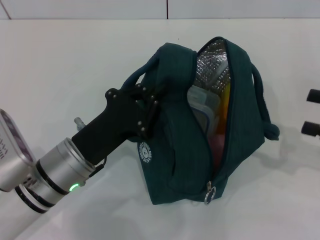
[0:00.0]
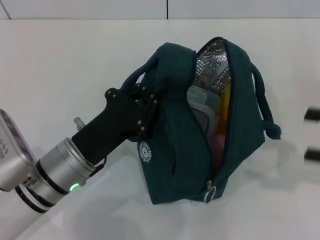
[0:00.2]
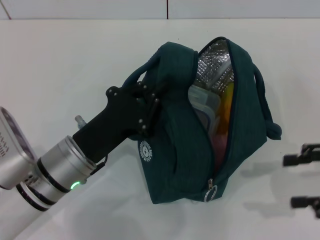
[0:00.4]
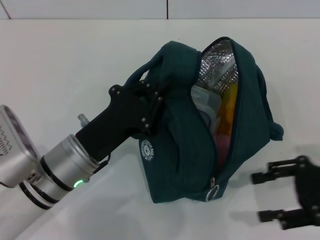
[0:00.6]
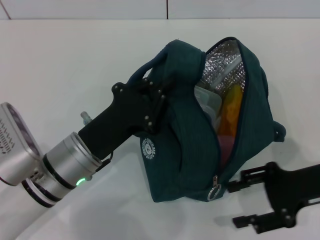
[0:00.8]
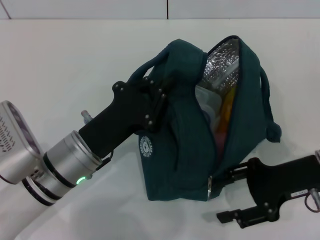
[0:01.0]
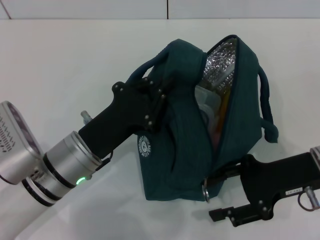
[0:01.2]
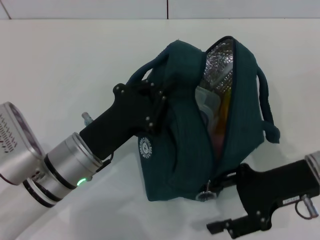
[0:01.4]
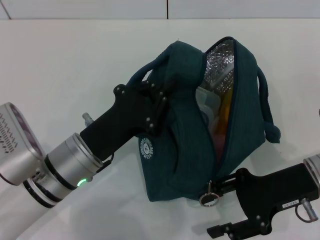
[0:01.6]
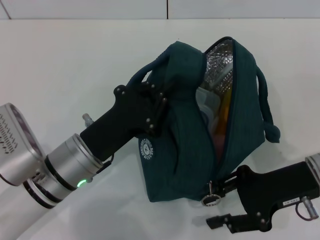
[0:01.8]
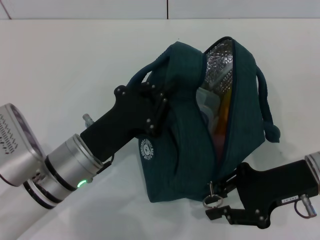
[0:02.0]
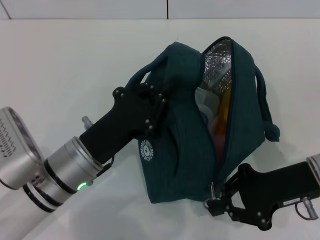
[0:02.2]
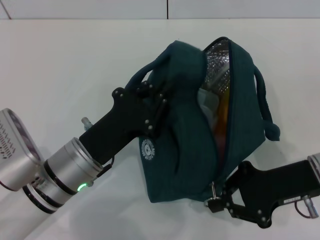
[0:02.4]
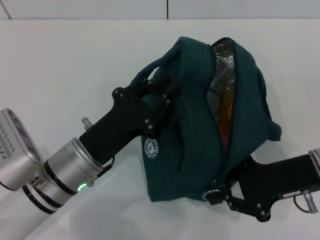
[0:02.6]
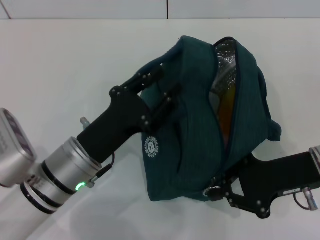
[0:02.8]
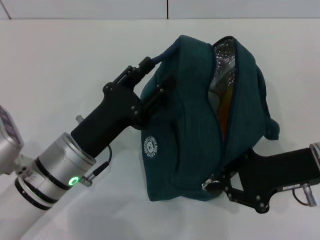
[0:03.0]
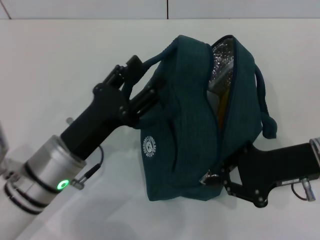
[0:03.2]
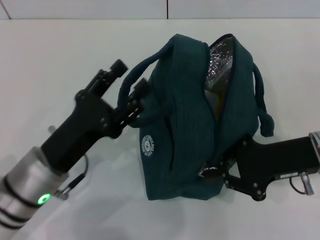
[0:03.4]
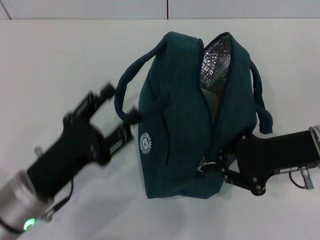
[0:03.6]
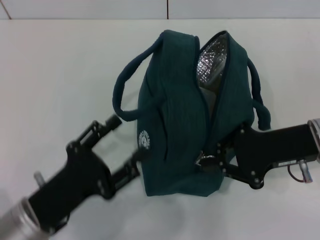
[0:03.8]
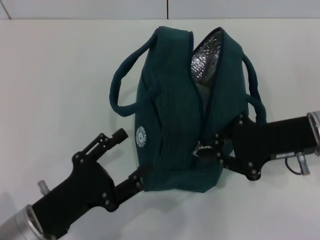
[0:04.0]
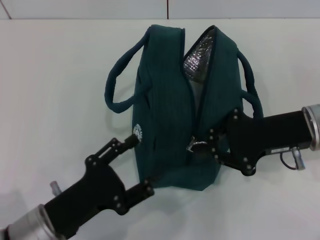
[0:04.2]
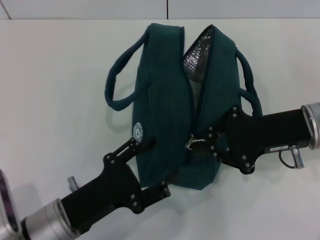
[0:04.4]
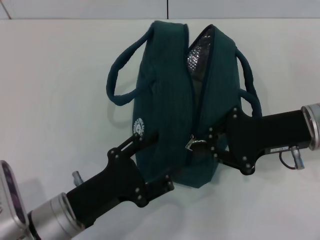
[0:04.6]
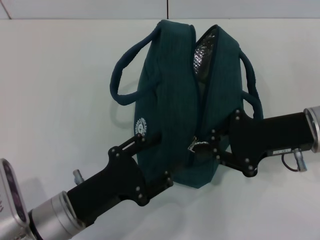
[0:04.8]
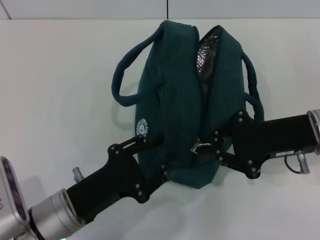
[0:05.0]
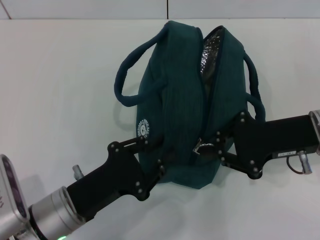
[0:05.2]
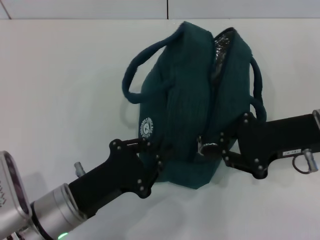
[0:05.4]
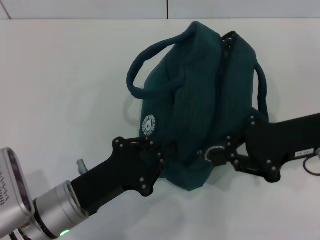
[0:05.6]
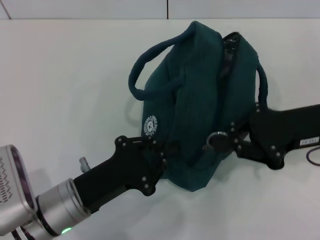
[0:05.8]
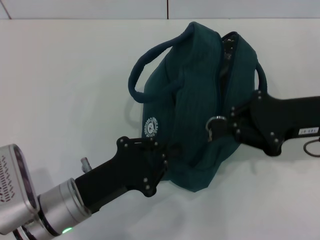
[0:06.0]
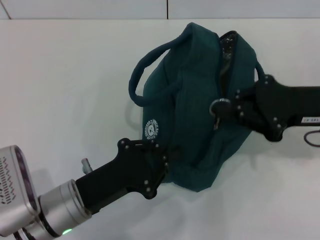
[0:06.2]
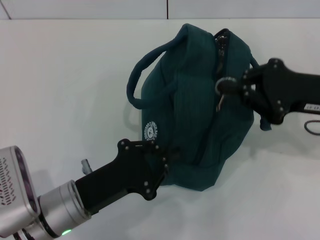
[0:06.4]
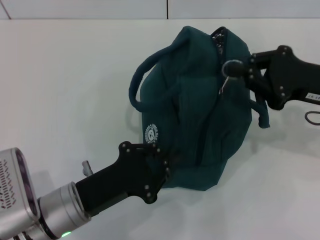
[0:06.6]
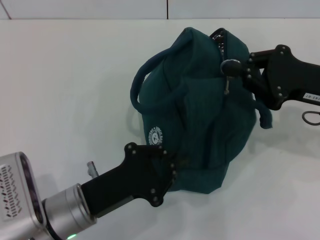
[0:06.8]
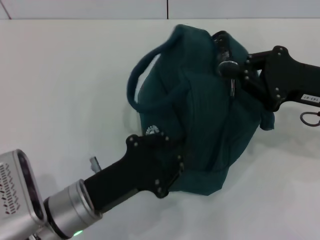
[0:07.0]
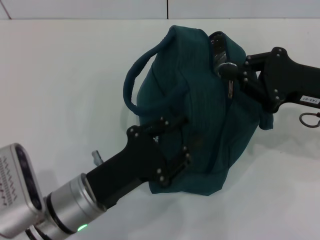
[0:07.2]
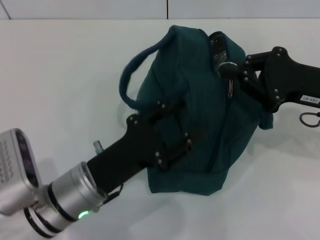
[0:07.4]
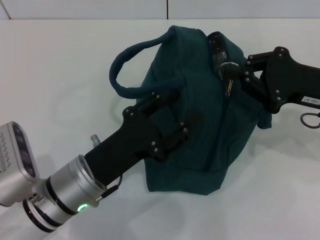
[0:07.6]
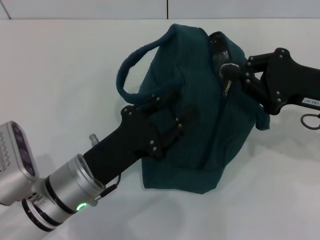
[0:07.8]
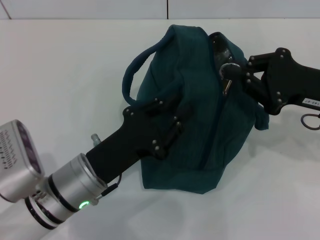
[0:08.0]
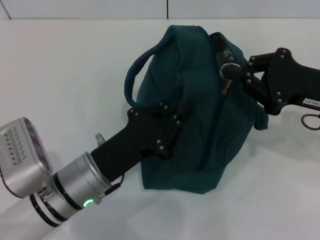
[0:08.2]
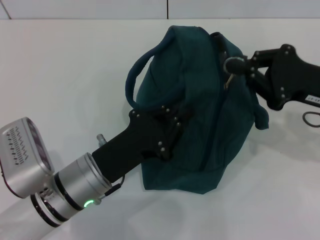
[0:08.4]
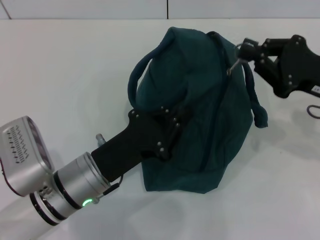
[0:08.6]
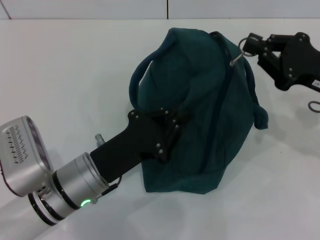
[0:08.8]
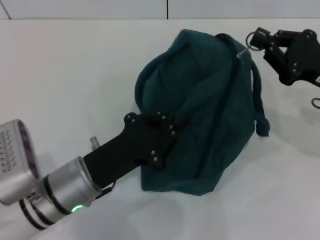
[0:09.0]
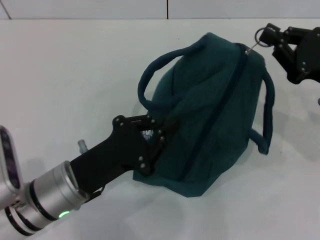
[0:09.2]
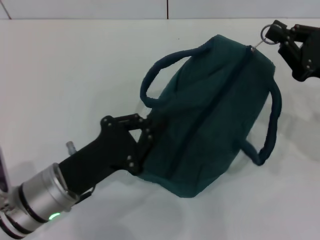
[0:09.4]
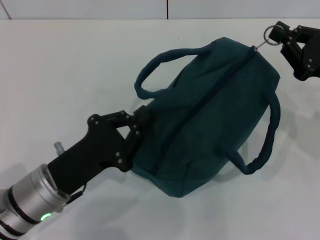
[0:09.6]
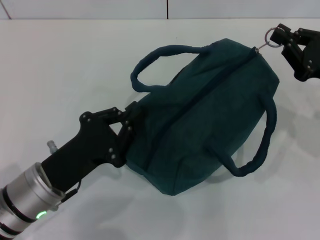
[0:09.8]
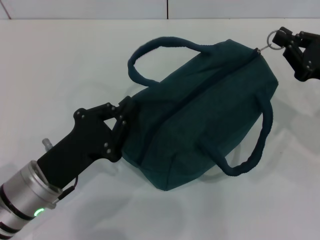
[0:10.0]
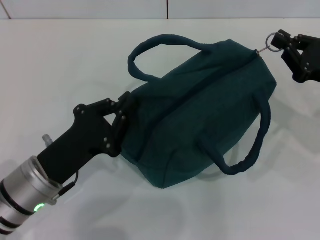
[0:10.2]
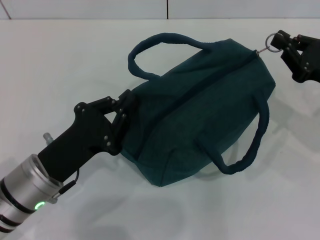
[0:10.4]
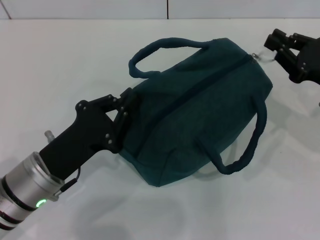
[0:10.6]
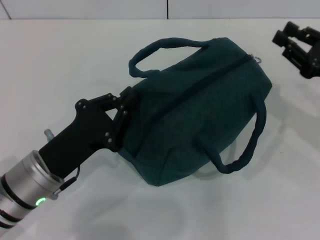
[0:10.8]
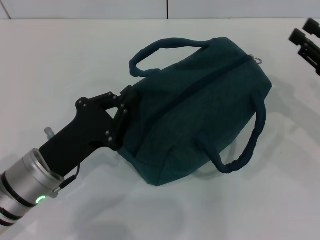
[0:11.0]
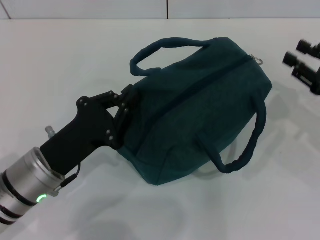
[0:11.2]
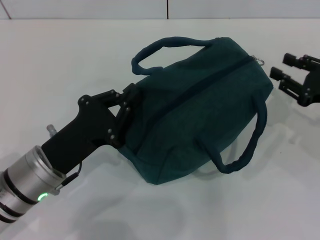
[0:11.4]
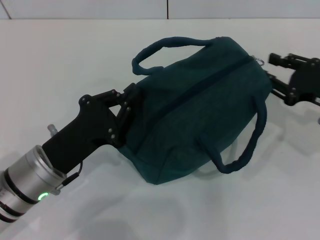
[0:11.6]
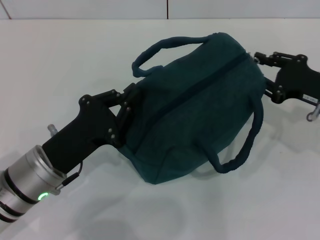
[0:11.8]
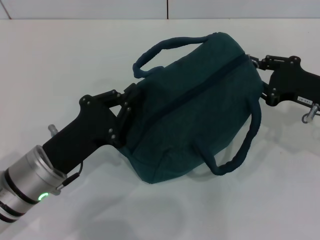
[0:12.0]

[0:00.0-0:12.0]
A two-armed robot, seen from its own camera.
Step, 0:00.0 to 0:03.0: Hold the lunch bag with your left hand.
0:00.0 to 0:01.6: The right gripper travels to the left by some 15 cm.
0:01.6 to 0:03.0: The left gripper opens its fingers. Meanwhile the right gripper closes.
0:03.0 to 0:04.4: The left gripper shifts some 5 cm backward, and opens its fingers.
0:04.4 to 0:06.0: The left gripper closes up.
0:06.0 to 0:07.6: The left gripper opens up.
0:07.6 to 0:09.0: The left gripper closes.
0:10.4 to 0:12.0: The right gripper opens its fingers.

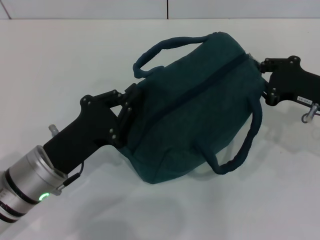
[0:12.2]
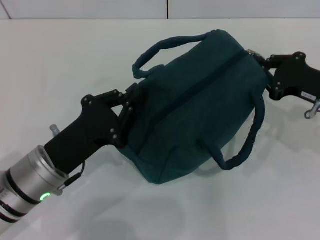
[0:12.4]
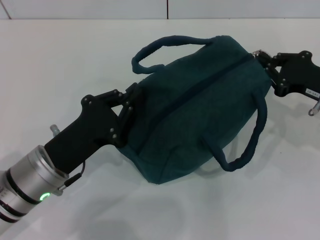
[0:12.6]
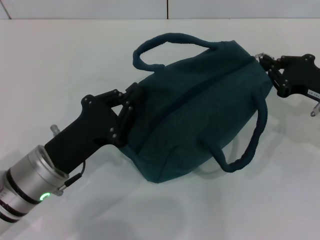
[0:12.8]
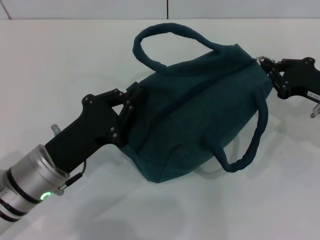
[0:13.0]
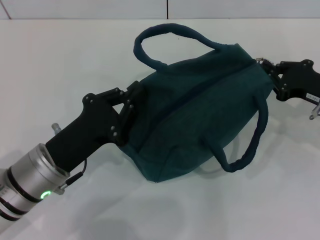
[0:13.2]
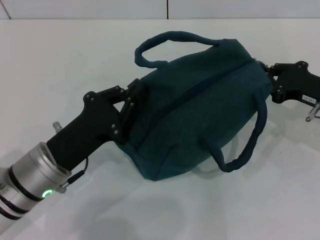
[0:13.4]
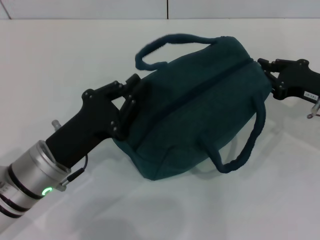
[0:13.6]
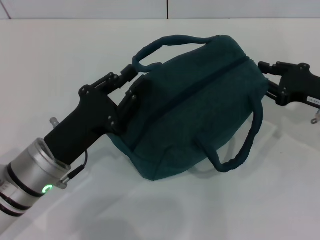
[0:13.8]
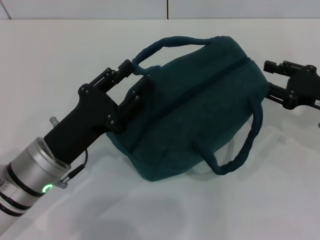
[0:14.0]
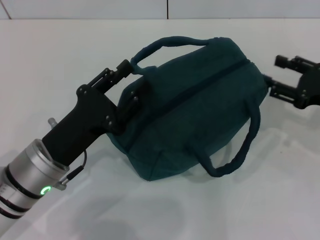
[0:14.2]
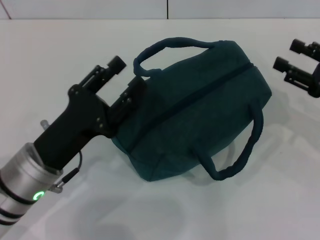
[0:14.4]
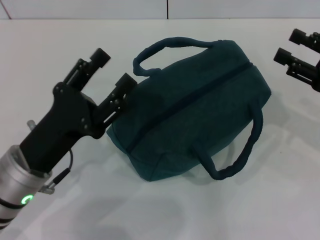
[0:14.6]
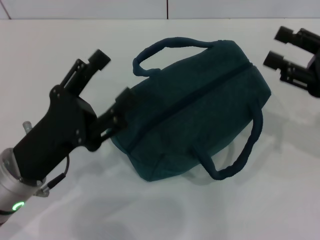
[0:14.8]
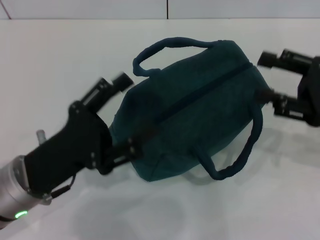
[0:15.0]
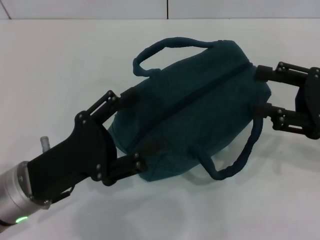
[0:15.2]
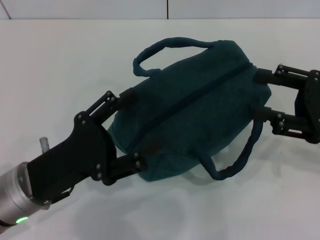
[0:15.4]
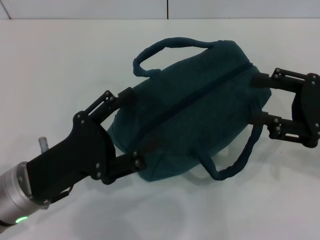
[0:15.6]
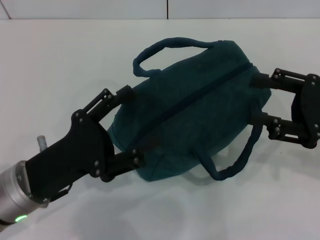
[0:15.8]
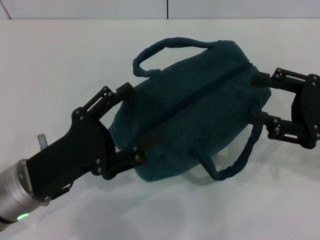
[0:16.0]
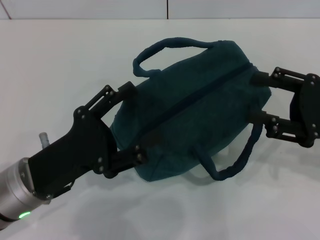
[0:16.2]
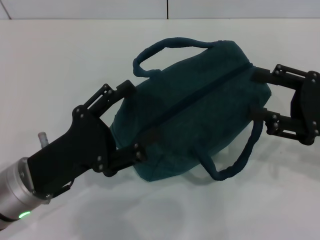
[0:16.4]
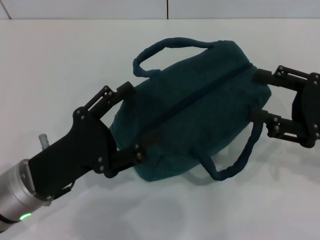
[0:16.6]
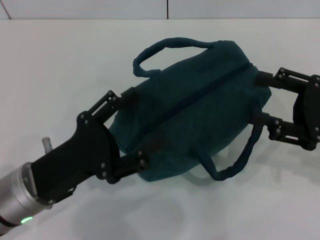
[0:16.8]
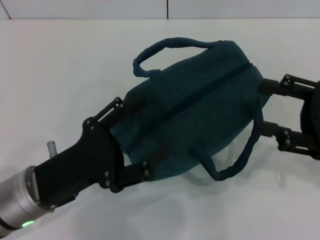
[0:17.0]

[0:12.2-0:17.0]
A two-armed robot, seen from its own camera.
0:12.2 to 0:13.8: The grippers move only a little.
0:13.8 to 0:15.4: The left gripper opens. Meanwhile the right gripper travels backward and upward by some 10 cm, and opens.
0:15.4 to 0:17.0: There are only small adjustments of the grippers.

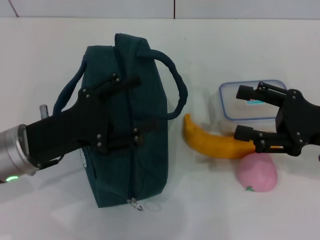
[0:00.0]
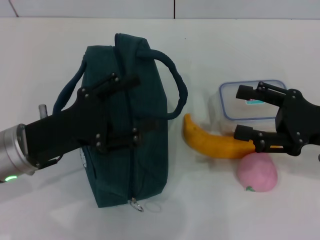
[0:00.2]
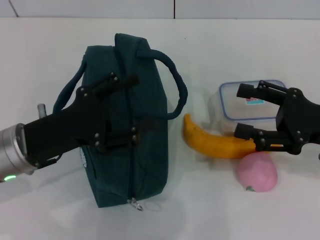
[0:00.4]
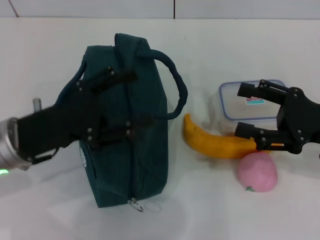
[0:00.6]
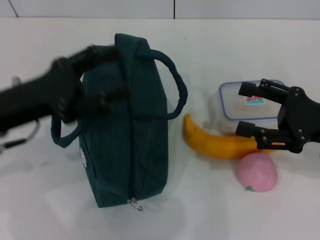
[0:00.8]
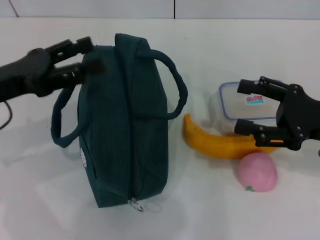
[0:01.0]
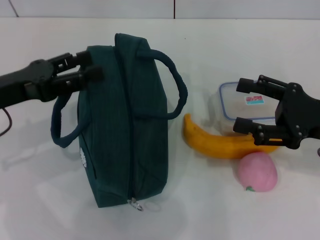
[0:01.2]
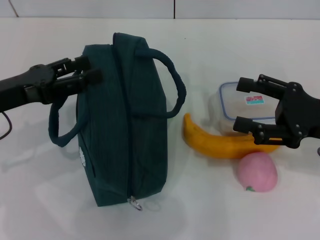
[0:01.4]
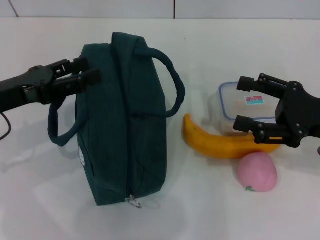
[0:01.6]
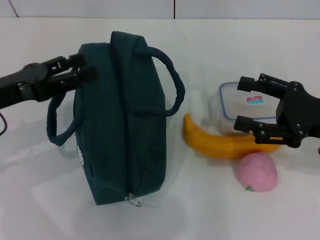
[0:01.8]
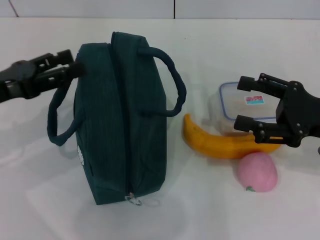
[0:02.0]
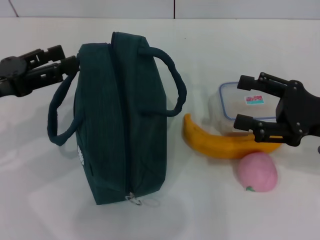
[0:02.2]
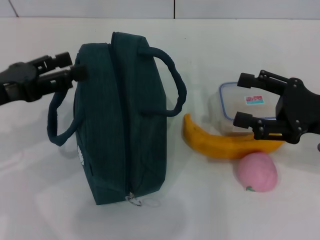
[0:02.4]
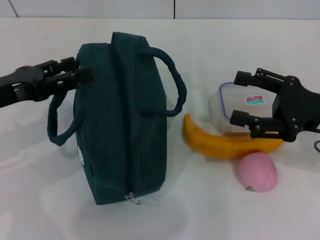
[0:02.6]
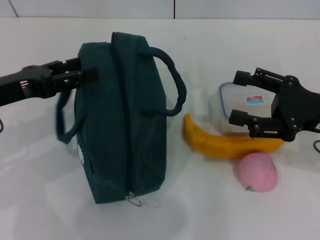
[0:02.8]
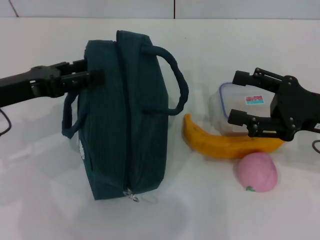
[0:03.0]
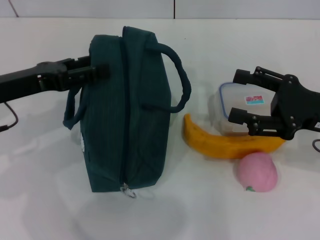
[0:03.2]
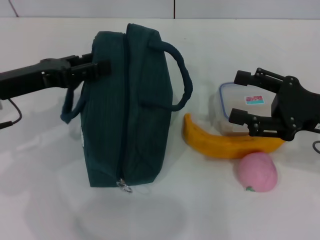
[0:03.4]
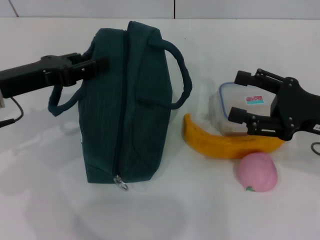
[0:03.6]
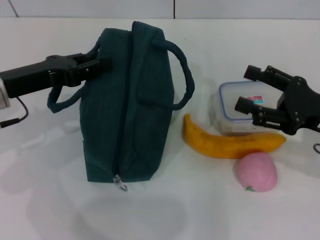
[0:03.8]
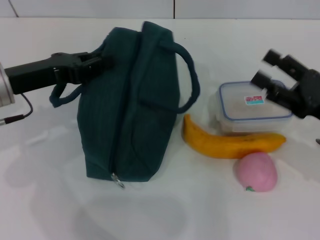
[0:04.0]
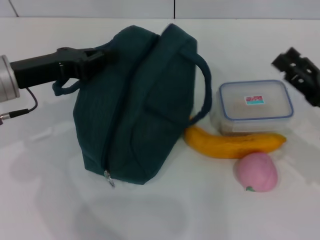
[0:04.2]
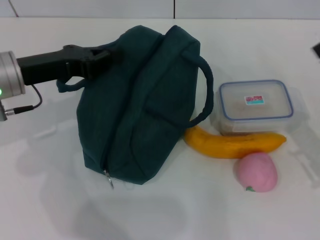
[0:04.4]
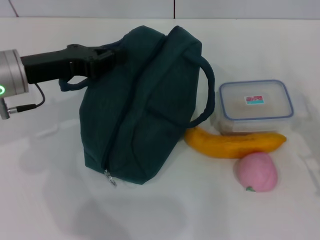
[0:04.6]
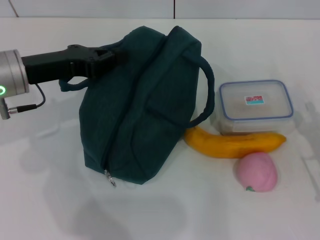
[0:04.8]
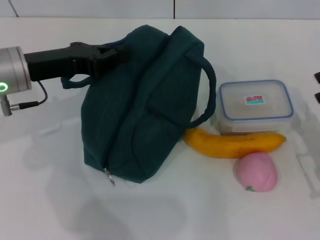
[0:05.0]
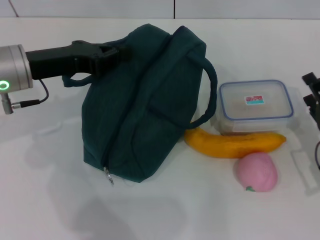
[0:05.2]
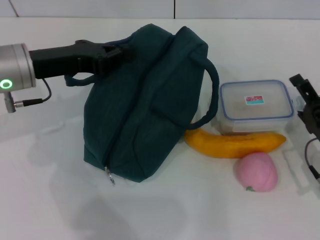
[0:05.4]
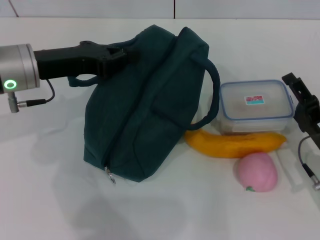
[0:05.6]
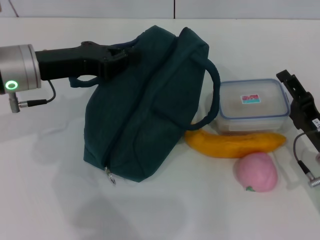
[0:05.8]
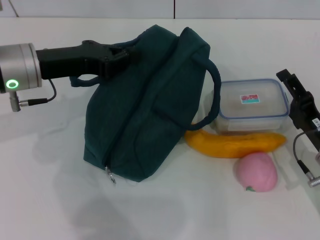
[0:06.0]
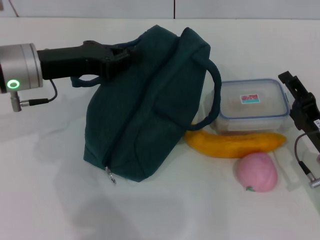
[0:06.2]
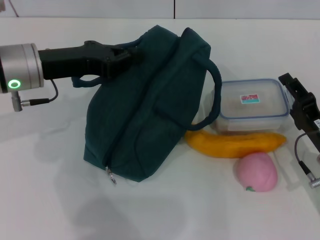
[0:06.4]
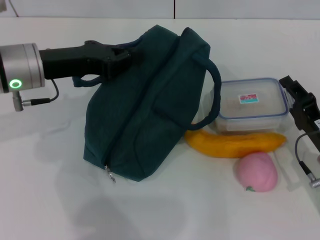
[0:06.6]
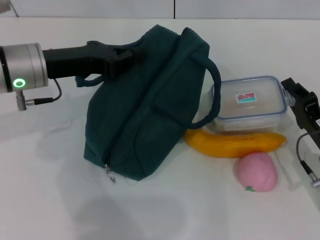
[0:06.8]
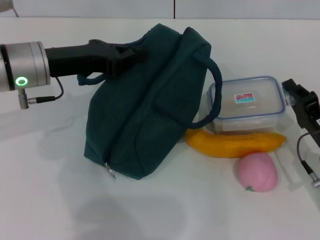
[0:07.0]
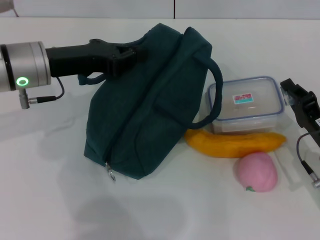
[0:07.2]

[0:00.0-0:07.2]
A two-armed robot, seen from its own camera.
Step, 0:00.0 to 0:05.0: Hold the lunch bag with your left hand.
0:00.0 to 0:01.4: The left gripper moves to the left, roughly 5 cm.
0:01.4 to 0:02.8: There are only small adjustments of the grippers.
0:02.8 to 0:04.4: The left gripper heads forward, covering some 5 cm, and closes up. The right gripper is displaced downward by roughly 5 cm.
0:04.4 to 0:05.8: The right gripper shifts by some 5 cm.
0:05.8 to 0:07.2: The right gripper closes.
